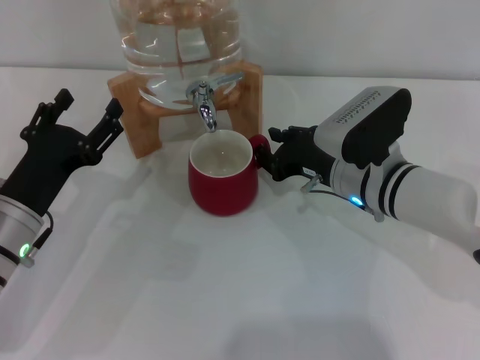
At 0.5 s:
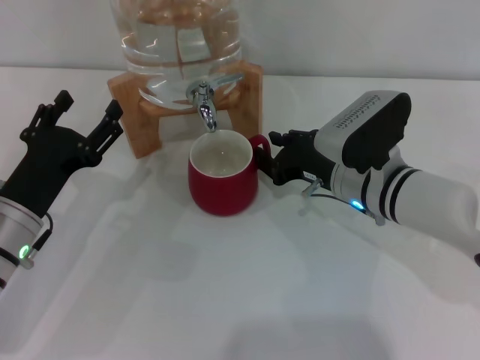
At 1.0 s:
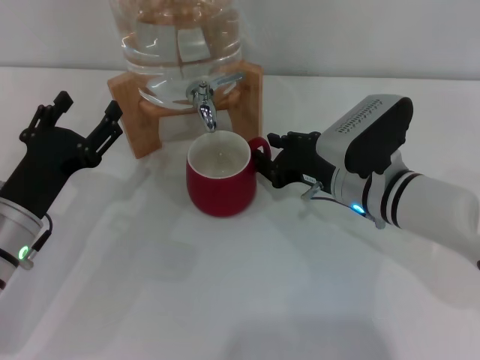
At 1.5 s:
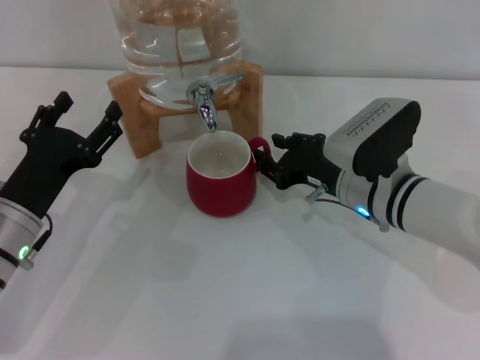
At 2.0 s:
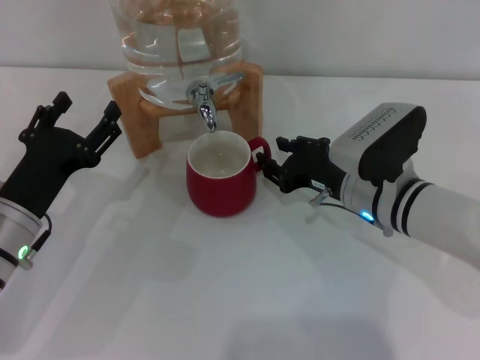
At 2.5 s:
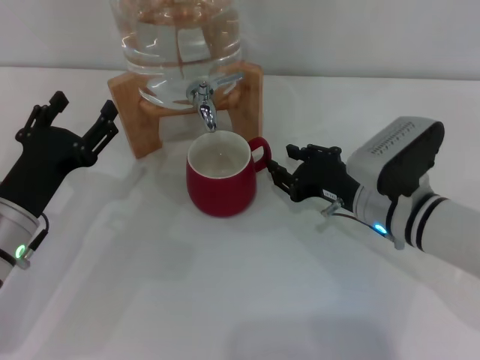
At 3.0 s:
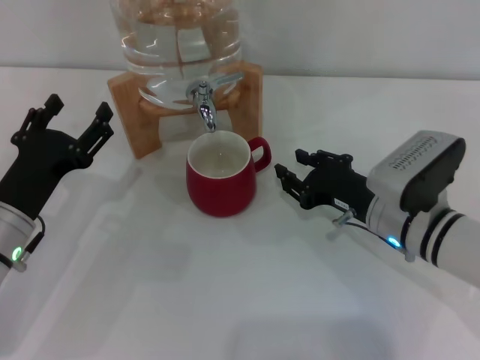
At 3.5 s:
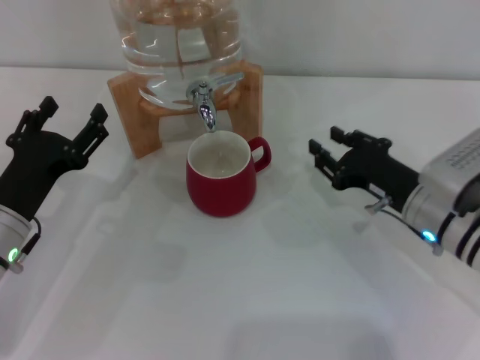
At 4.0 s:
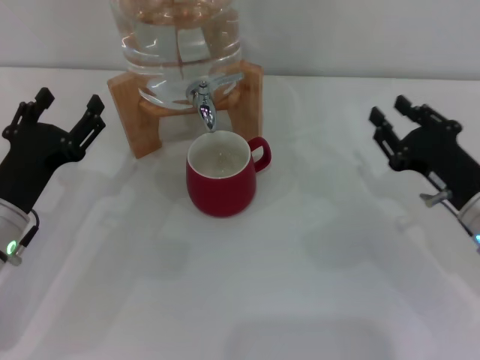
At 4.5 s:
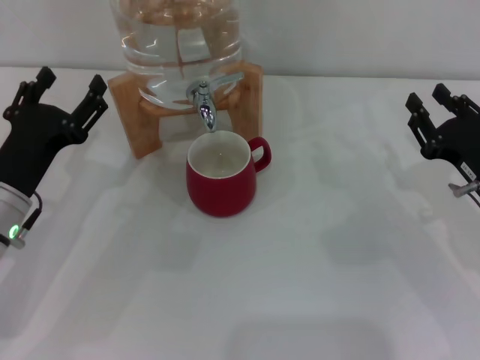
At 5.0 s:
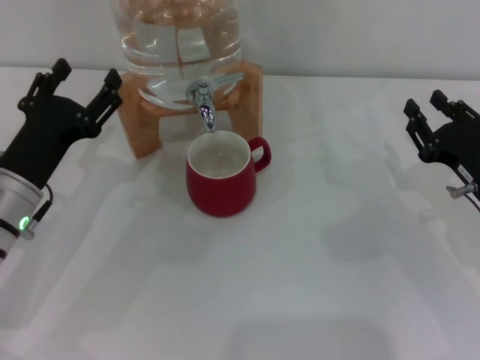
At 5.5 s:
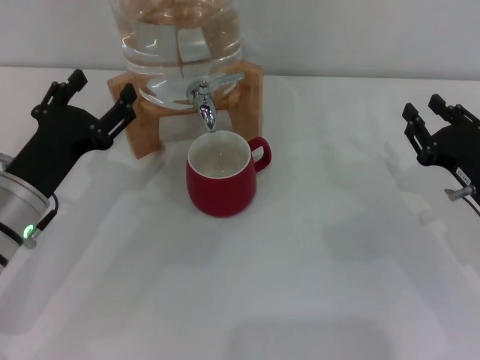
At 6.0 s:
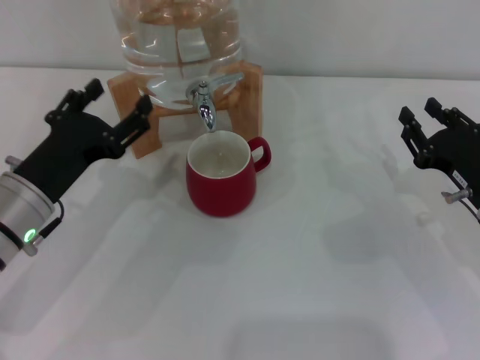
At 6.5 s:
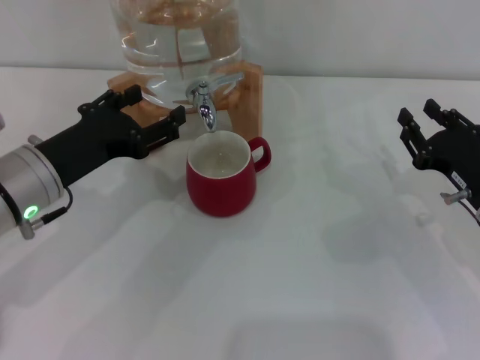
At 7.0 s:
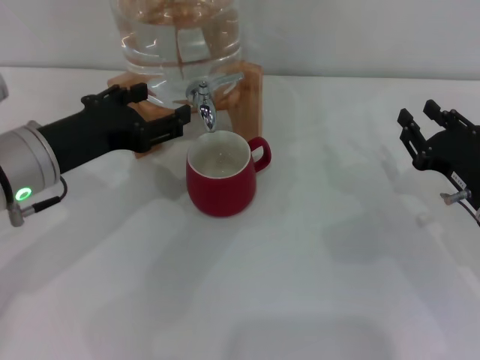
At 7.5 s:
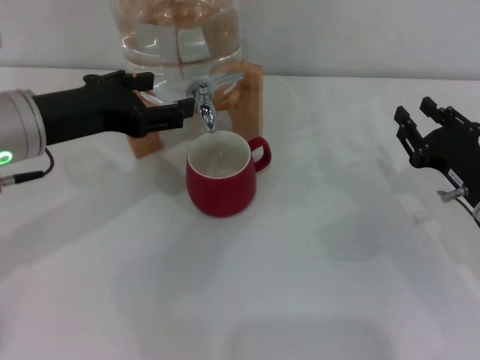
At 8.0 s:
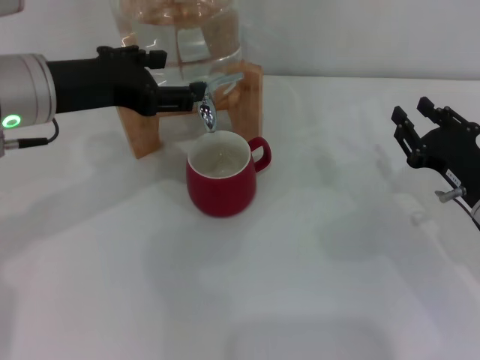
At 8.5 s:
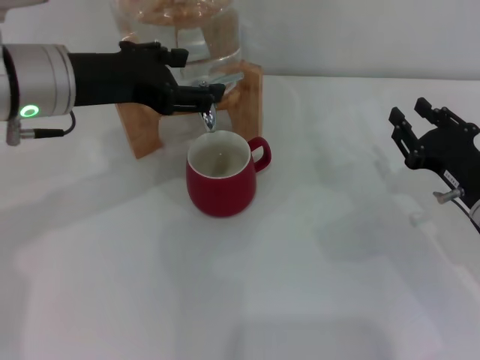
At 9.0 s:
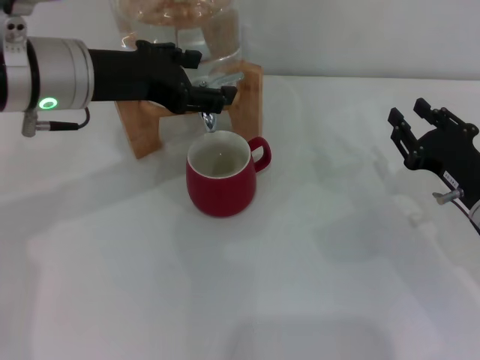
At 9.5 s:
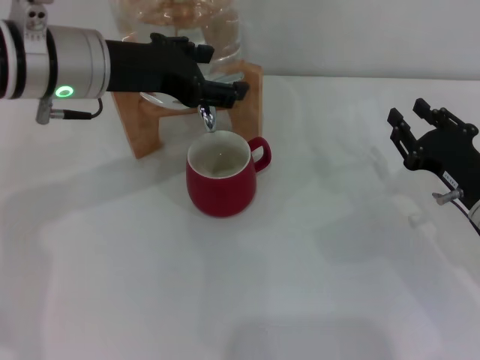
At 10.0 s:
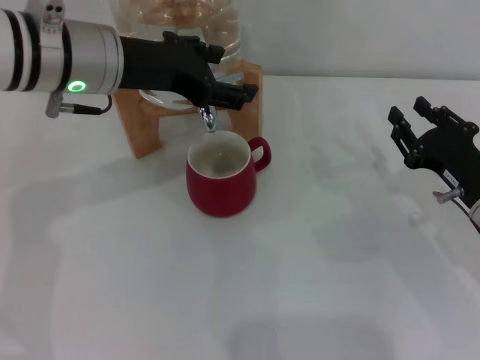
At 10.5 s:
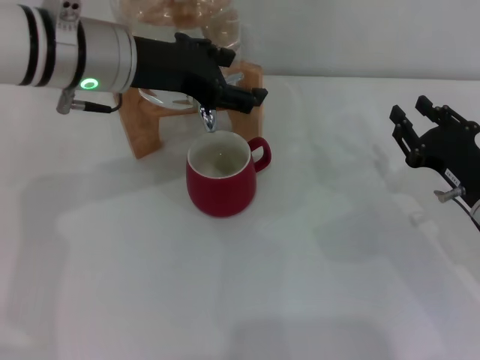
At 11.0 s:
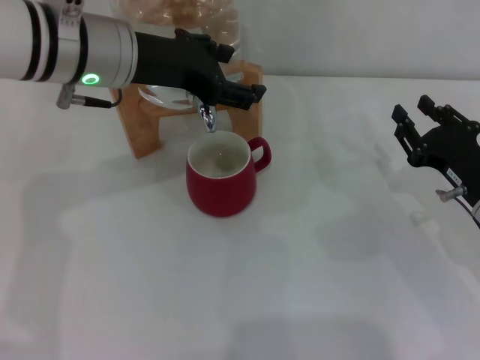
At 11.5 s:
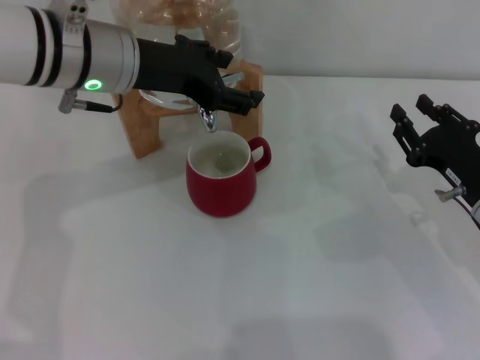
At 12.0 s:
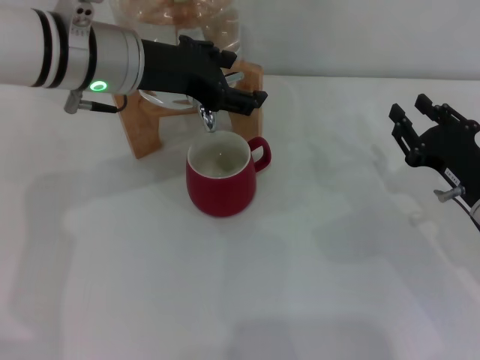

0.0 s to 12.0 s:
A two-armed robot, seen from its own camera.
Task of the whole recording: the right gripper pick up the red cup and place it horizontally under the faucet, the left gripper turn on the faucet to fill the cup, and then turn off the faucet.
Step, 0.0 to 3.0 s: Move the cup beneath the water dispenser nozzle with the right gripper.
0.0 to 2.0 s: The grippers make only small movements.
2.0 to 4.0 s: The right gripper shifts roughly 10 cm to the right.
4.0 to 6.0 s: There are only small adjustments of the grippers.
6.0 to 8.0 s: The left gripper moves upward and forward, about 15 cm.
8.0 to 10.0 s: The left gripper moves to the right, some 5 cm.
10.0 to 12.0 s: The grippers stay close to where they were, moving slightly.

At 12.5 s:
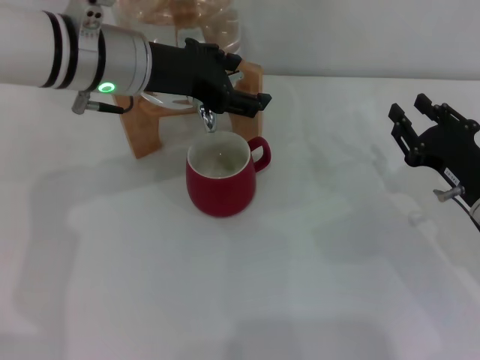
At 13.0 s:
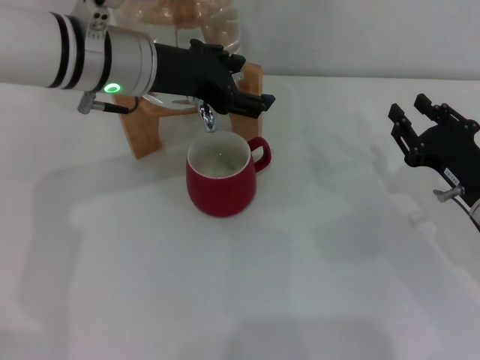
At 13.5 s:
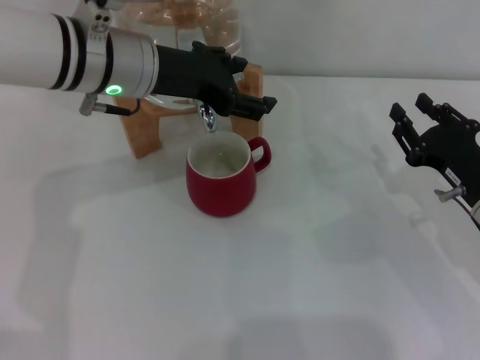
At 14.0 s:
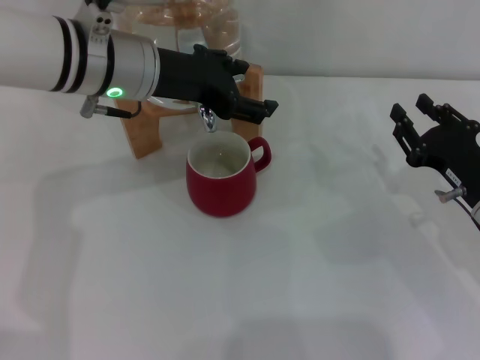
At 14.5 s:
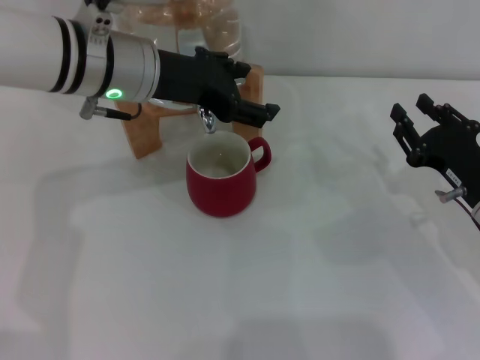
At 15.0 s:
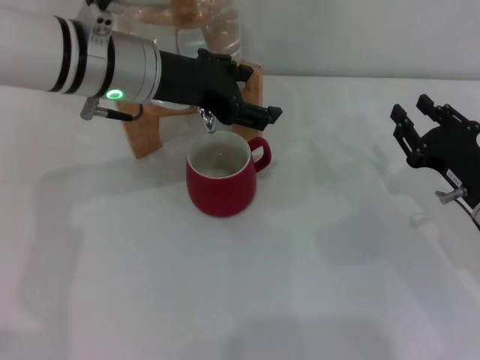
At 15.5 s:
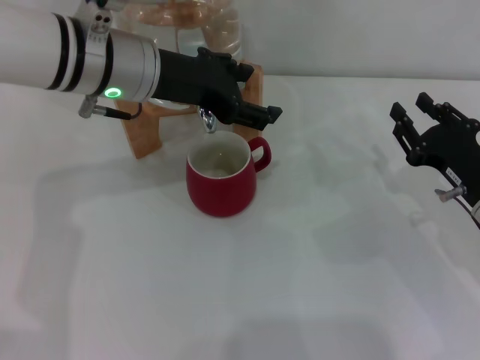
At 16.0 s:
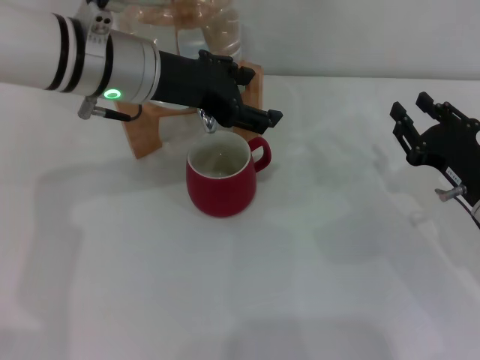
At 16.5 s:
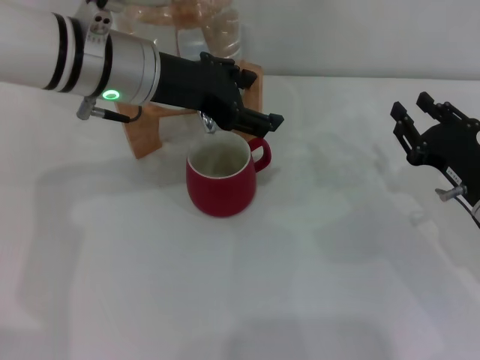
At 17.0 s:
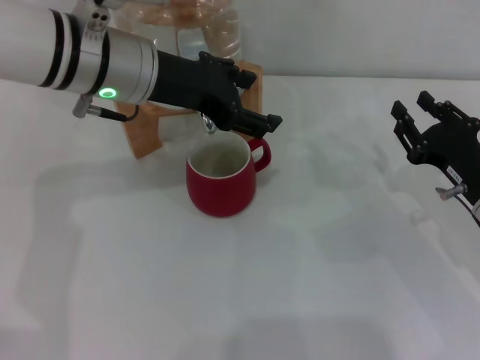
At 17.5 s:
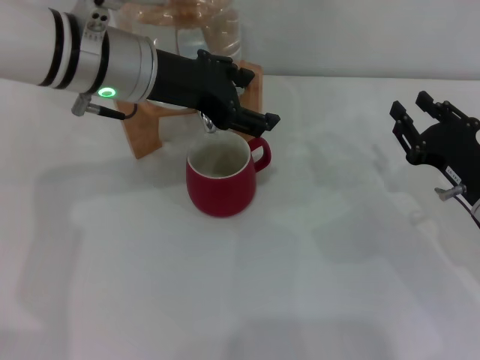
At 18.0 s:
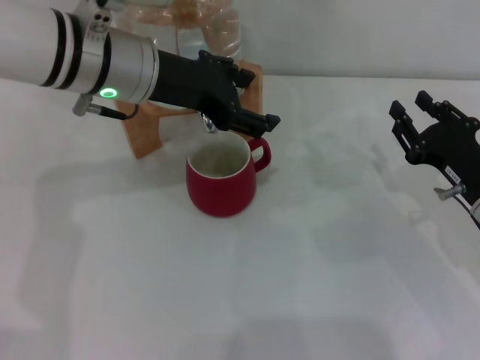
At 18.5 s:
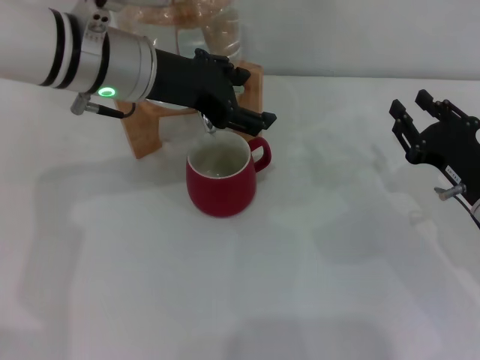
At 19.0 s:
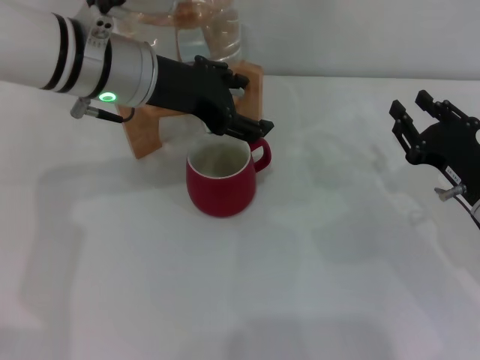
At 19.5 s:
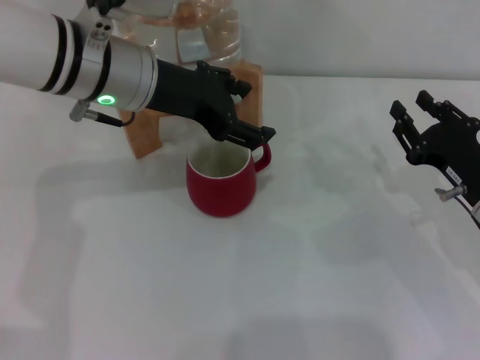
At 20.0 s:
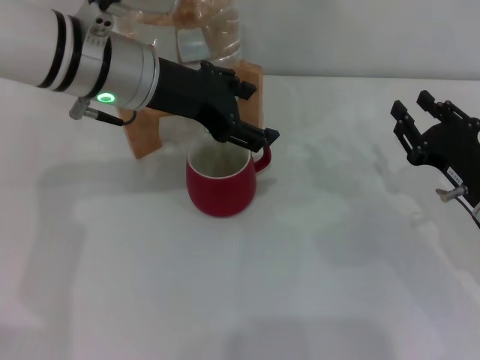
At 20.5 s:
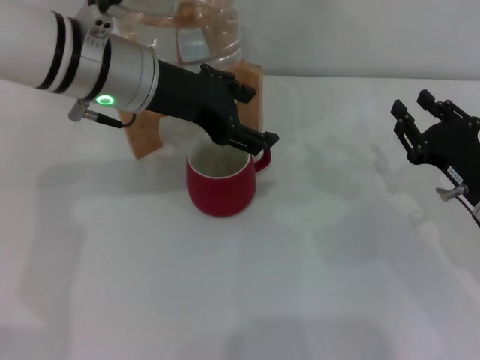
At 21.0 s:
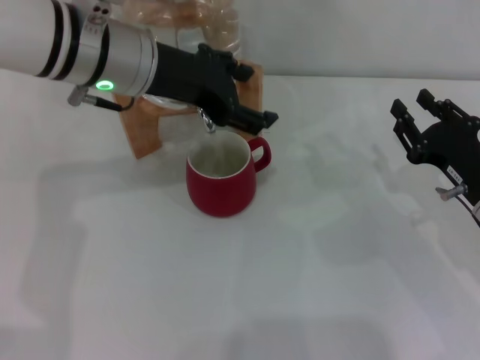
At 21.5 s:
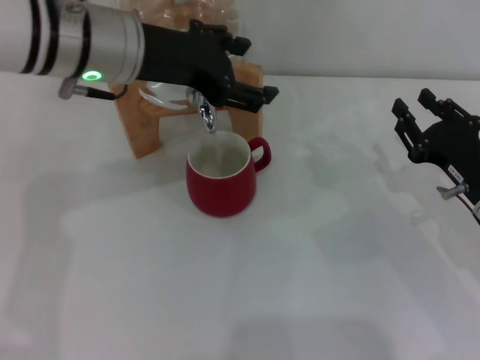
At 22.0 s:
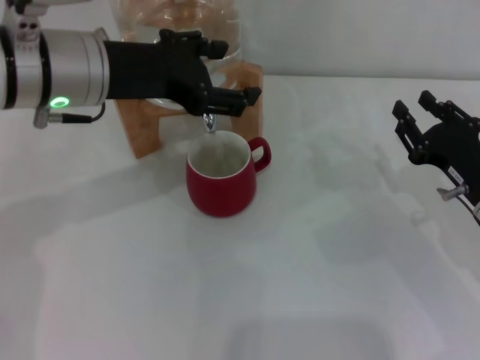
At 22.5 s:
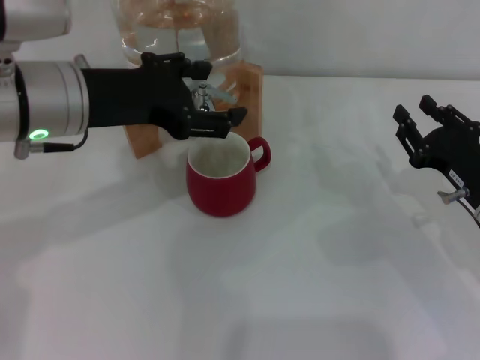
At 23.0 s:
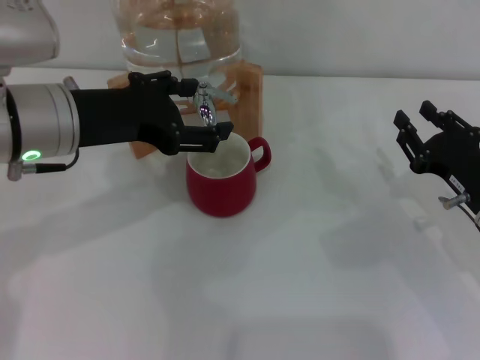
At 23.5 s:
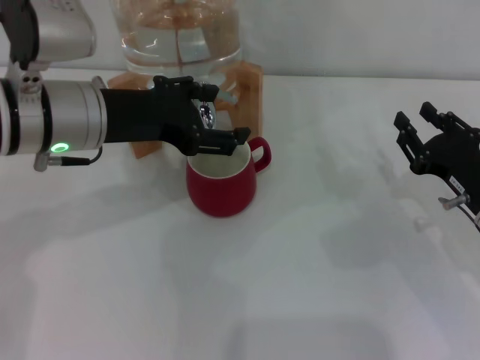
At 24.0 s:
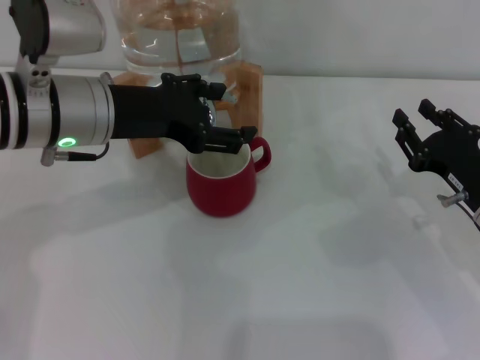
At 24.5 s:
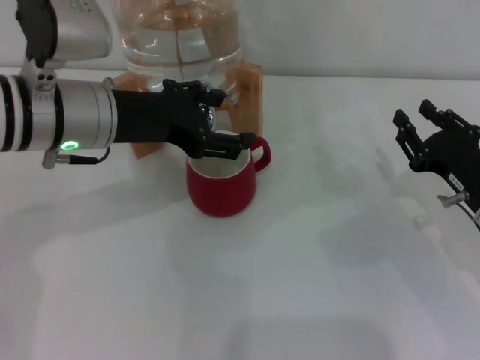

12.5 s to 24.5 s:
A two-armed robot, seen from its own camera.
Task of the whole recording: the right gripper pick up the red cup and place it horizontally under the faucet, the left gripper turn on the faucet to fill the cup, and then turn off the faucet.
Step, 12.5 to 23.5 s: Open the dispenser valve and fill the cup with water with the left gripper.
12.5 to 14.5 s: Both grippers stay about where they are.
14.5 to 18.5 s: Neither gripper changes place.
18.5 to 20.5 s: Neither gripper changes place.
20.5 to 22.5 s: The left gripper goes some 5 cm backward.
22.5 to 24.5 s: The grippers stay close to where they were, moving slightly.

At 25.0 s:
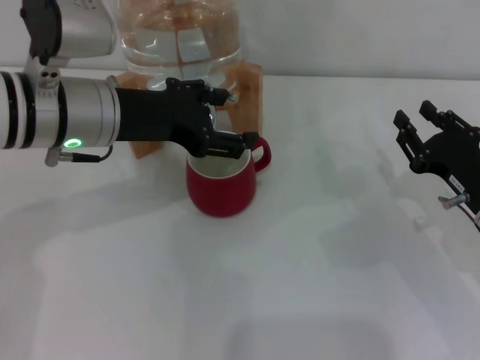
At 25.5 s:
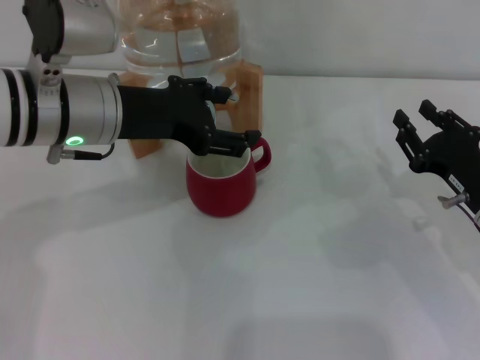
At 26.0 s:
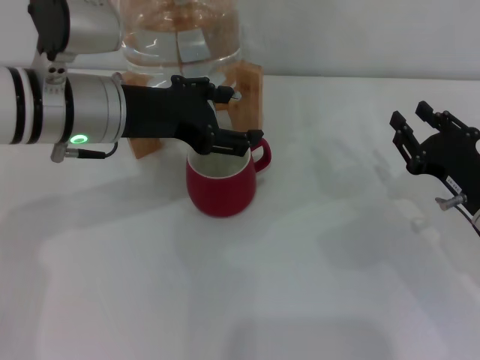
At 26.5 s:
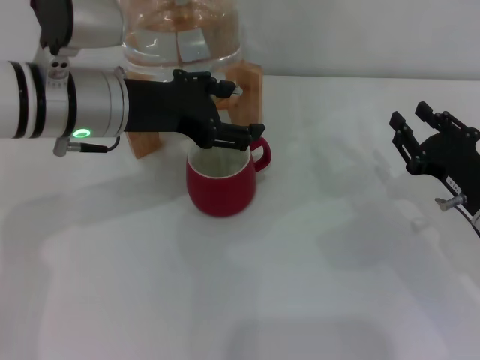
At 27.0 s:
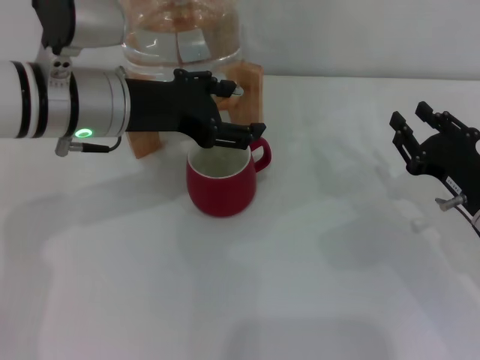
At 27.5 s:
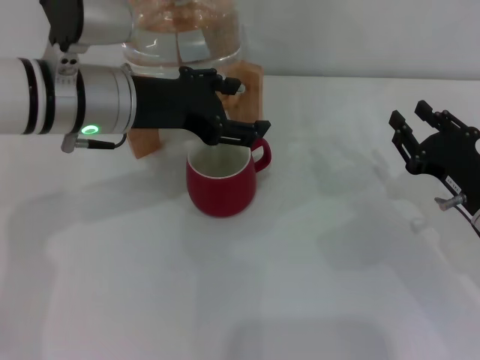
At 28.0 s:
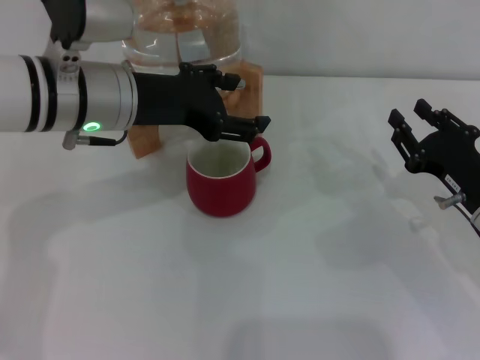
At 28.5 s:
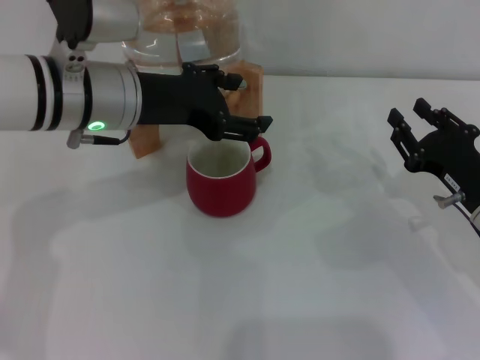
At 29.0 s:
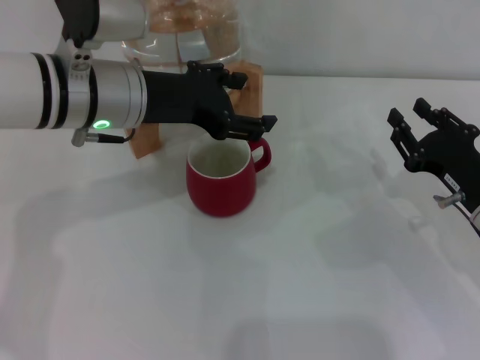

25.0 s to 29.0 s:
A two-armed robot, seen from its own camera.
Task of the whole recording: the right gripper pick up the red cup and place it horizontally under the faucet, the left gripper turn on the faucet to fill the cup, and then turn off the faucet.
25.0 to 27.0 s: Both grippers stay put.
27.0 to 29.0 s: The grippers make only small movements.
